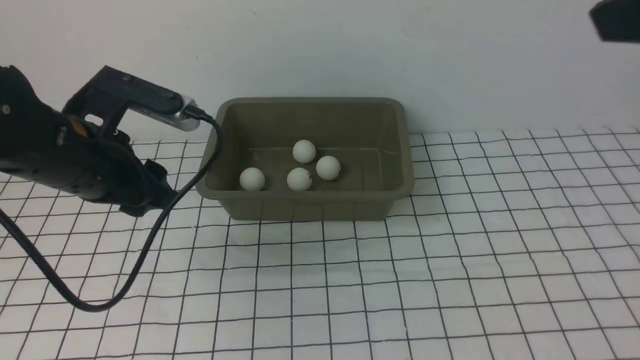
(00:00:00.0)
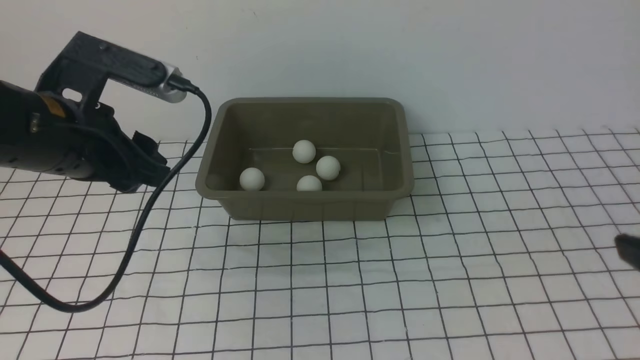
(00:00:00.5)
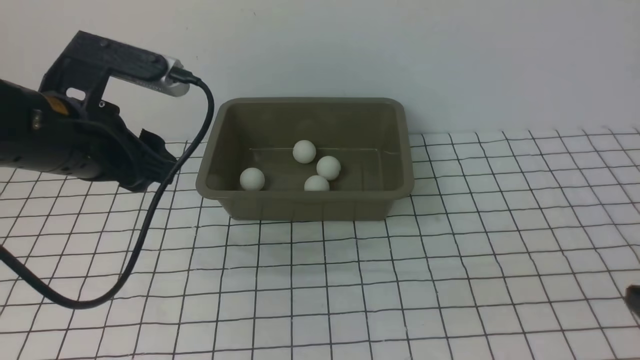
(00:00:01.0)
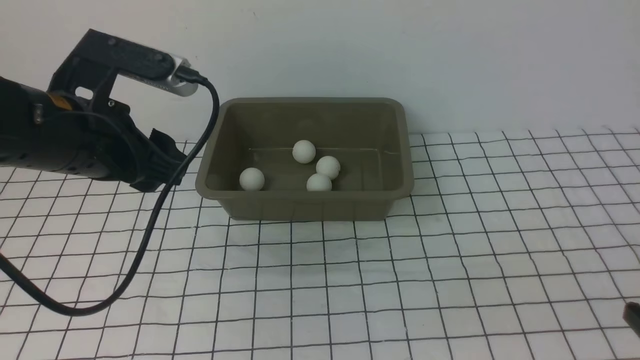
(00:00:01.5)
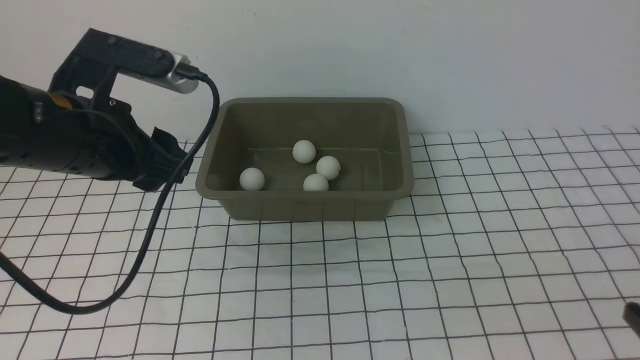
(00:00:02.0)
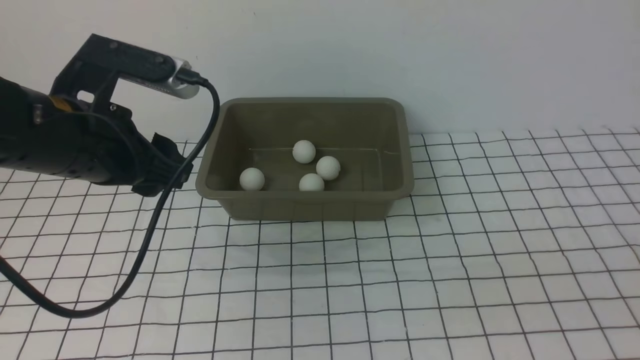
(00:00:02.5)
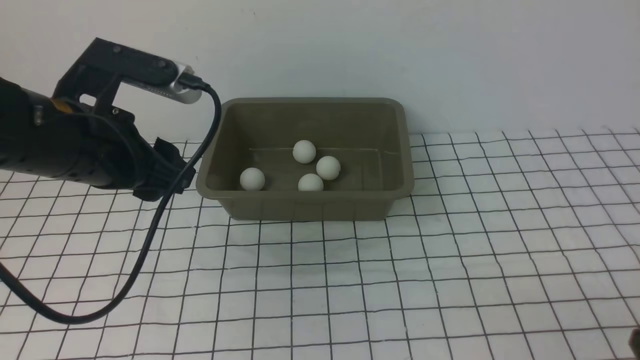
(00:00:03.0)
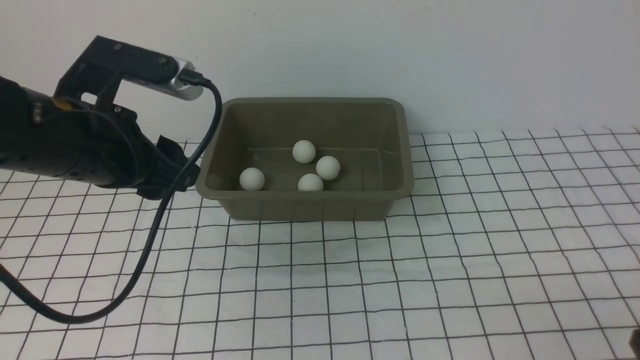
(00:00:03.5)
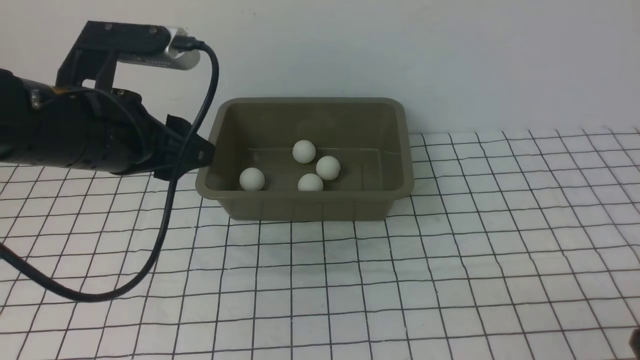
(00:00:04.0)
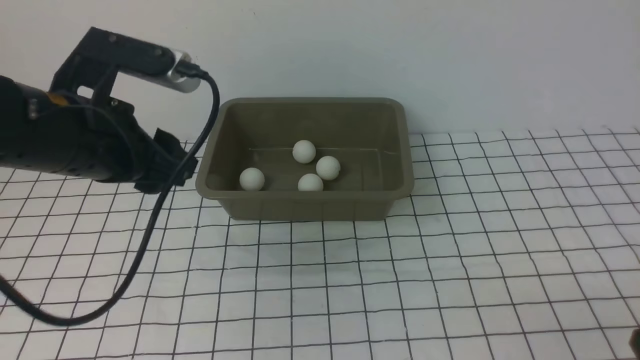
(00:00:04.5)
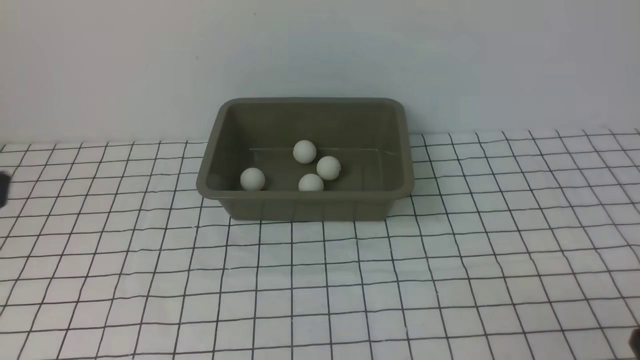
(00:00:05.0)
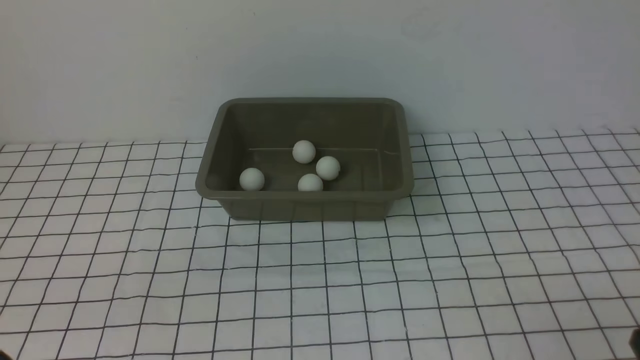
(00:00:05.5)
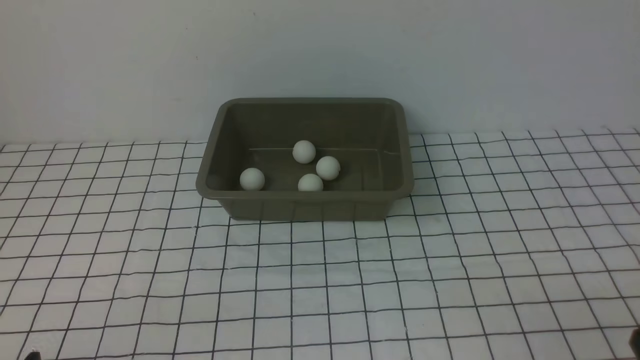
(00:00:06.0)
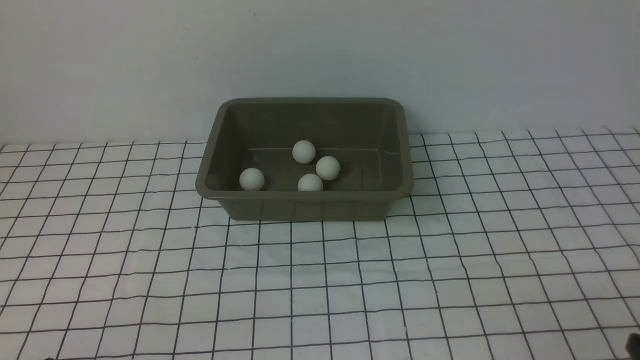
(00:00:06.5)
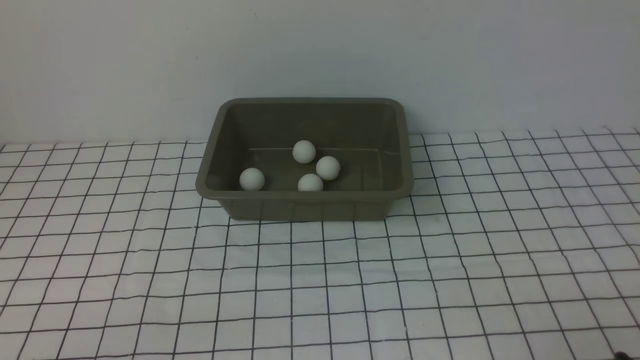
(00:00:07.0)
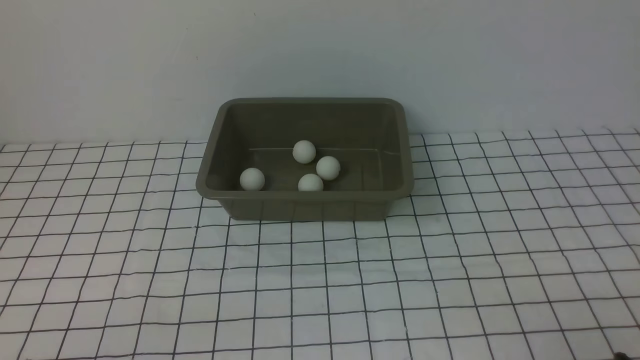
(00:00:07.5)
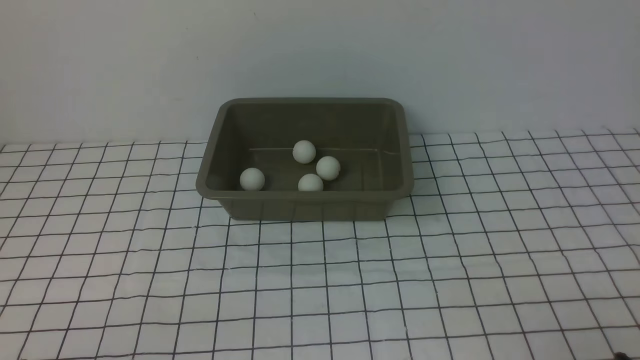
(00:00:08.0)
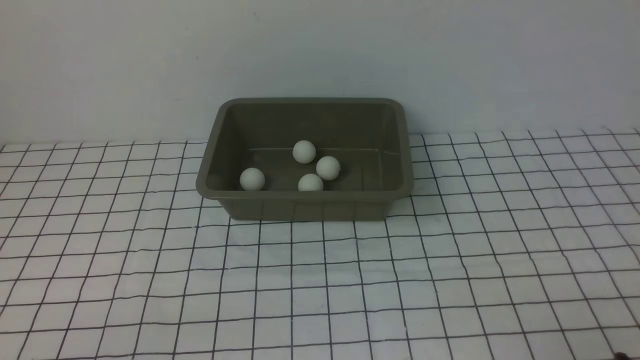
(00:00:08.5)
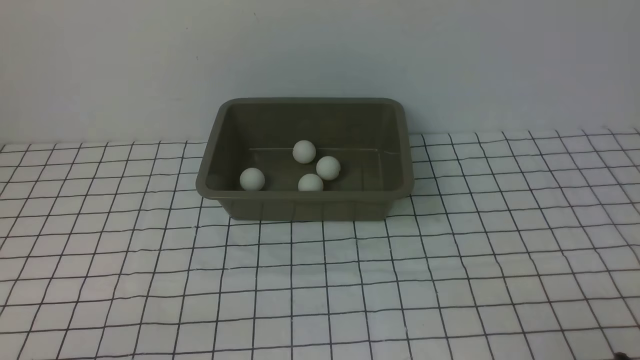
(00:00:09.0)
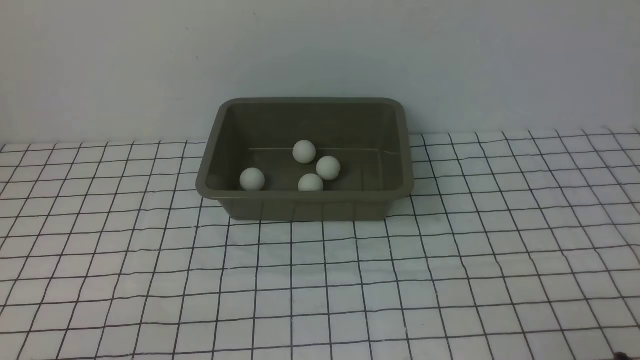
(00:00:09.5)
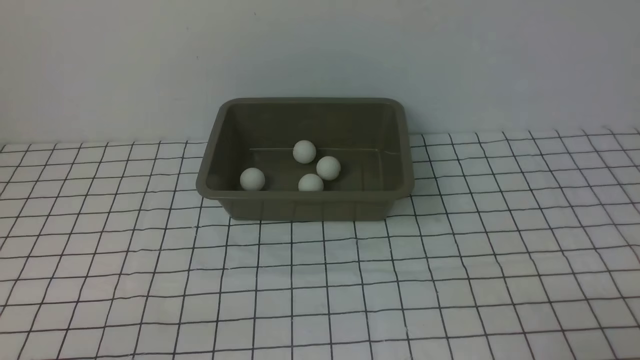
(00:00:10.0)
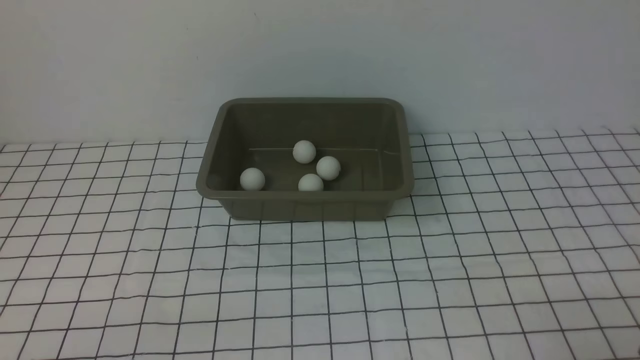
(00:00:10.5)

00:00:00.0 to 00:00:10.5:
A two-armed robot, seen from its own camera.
00:00:00.0 to 00:00:02.0: The right gripper moves downward and backward, approximately 25 cm.
00:00:04.0 to 00:00:06.5: The left gripper moves backward and downward, approximately 25 cm.

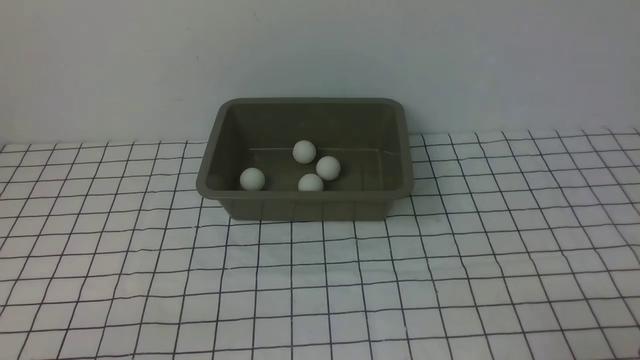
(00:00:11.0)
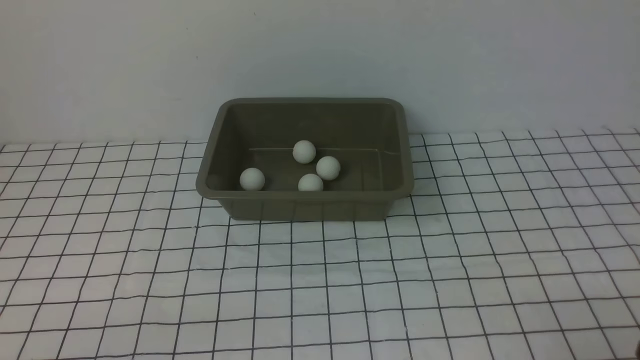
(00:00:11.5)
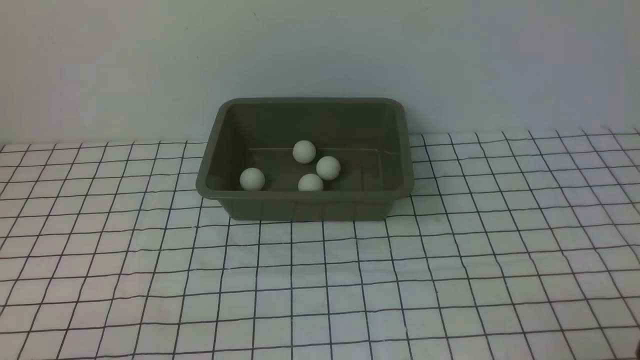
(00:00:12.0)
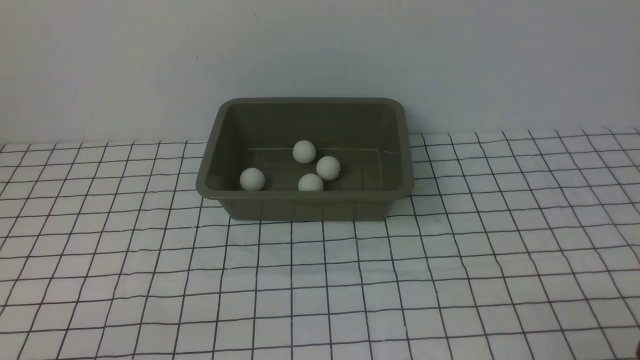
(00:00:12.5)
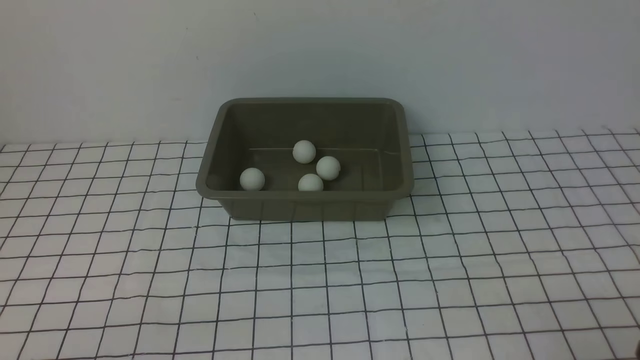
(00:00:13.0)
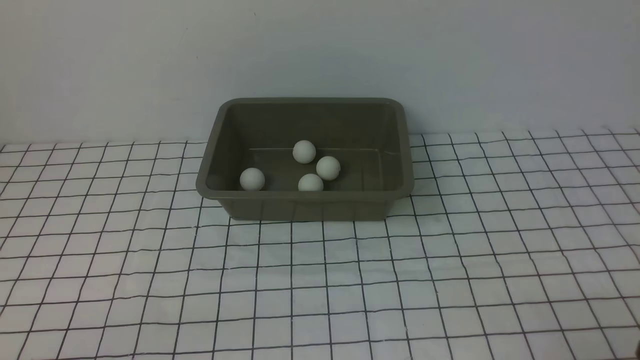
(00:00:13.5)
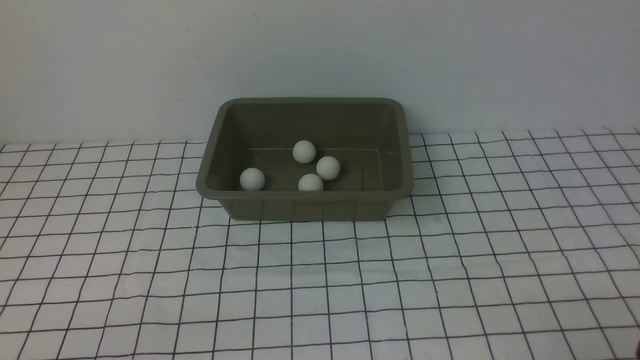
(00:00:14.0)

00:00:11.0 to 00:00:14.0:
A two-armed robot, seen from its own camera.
00:00:11.0 to 00:00:14.0: Both grippers stay put.

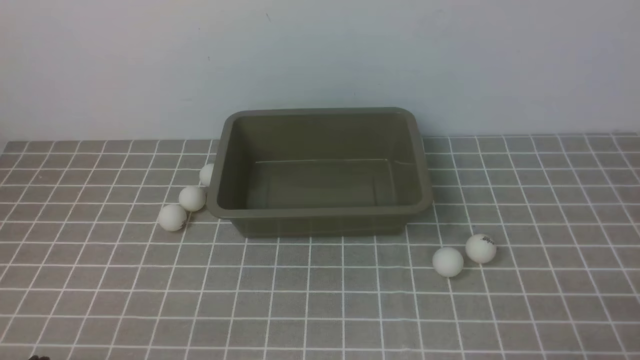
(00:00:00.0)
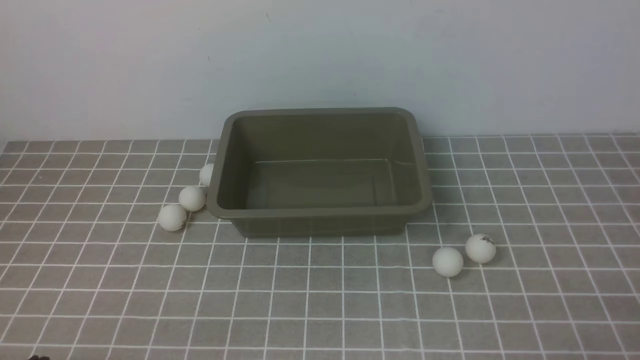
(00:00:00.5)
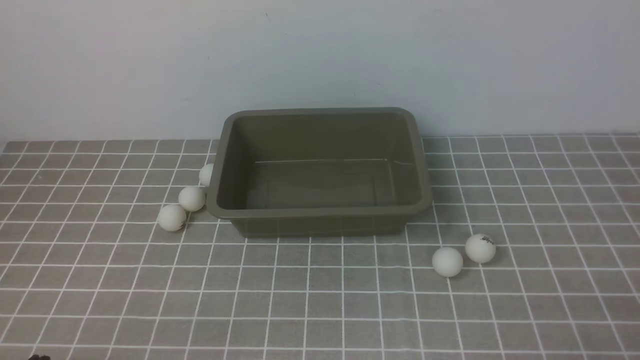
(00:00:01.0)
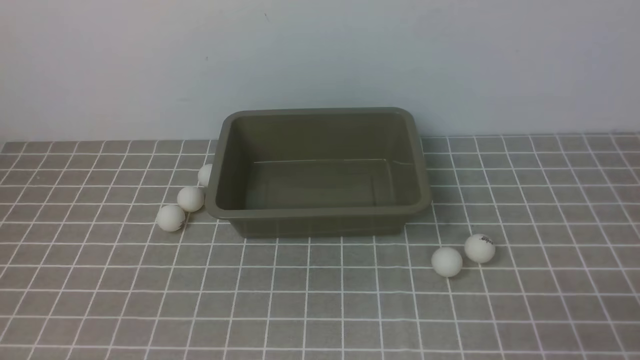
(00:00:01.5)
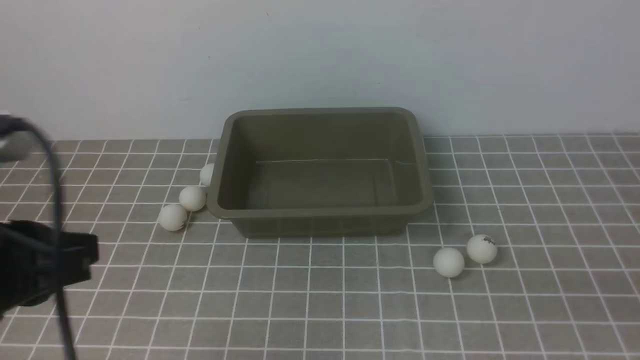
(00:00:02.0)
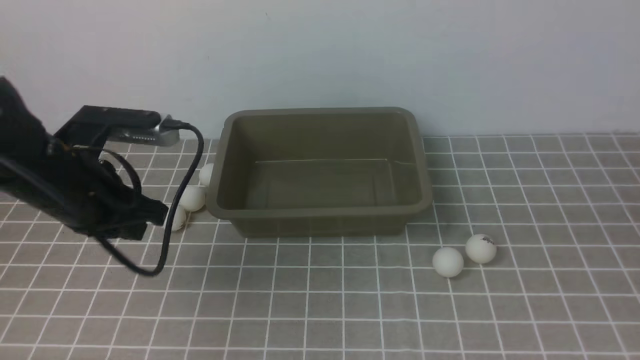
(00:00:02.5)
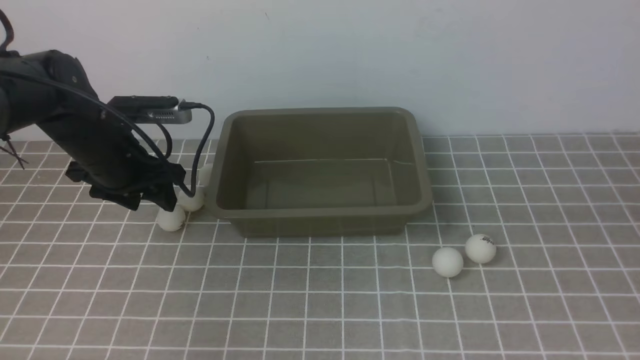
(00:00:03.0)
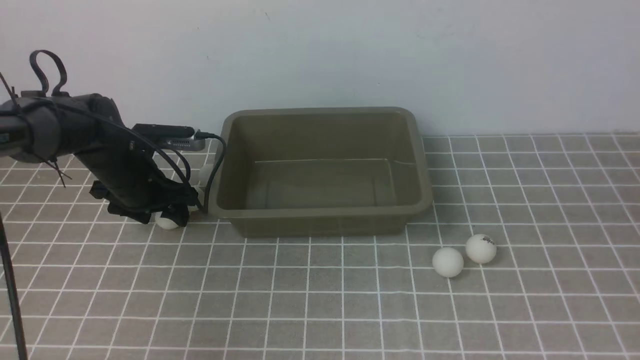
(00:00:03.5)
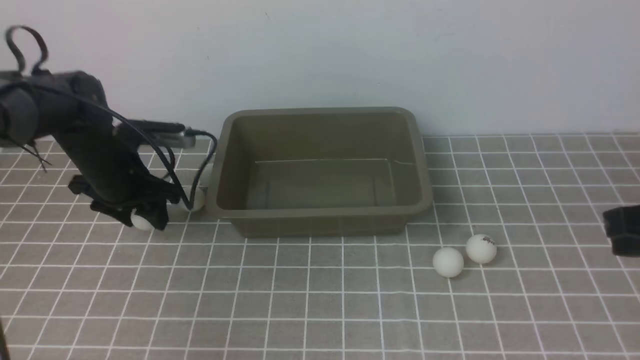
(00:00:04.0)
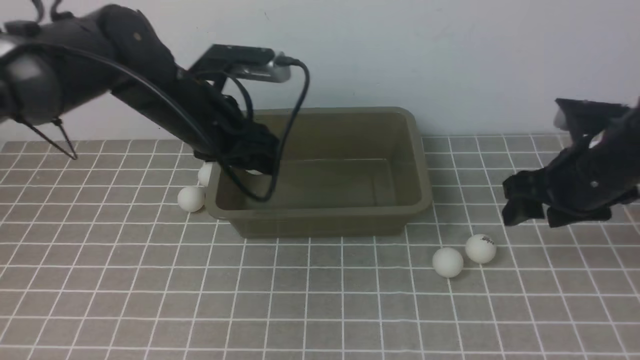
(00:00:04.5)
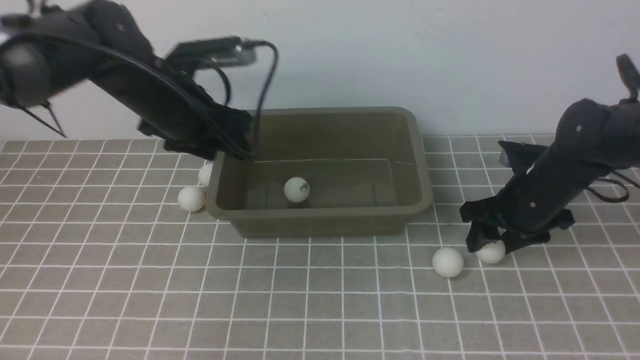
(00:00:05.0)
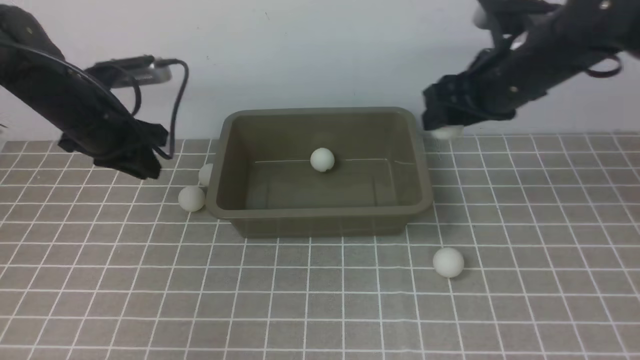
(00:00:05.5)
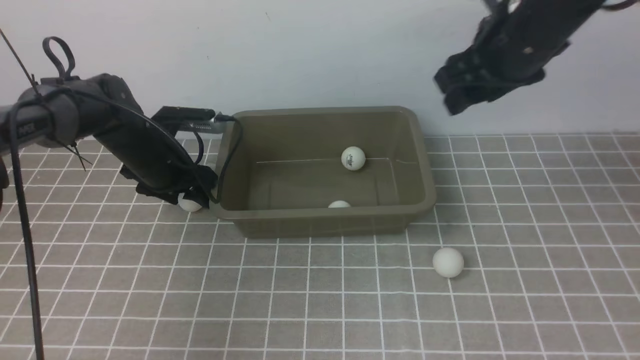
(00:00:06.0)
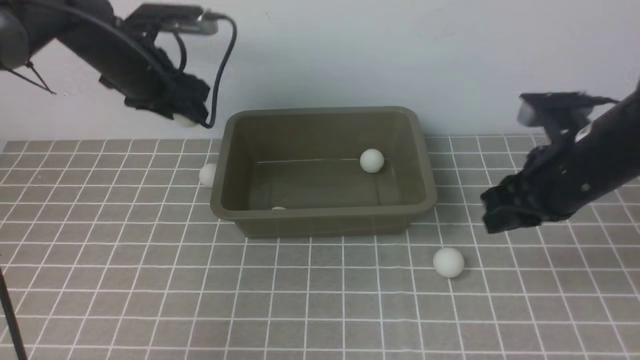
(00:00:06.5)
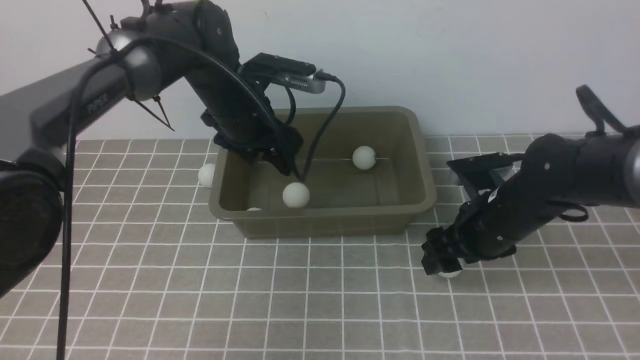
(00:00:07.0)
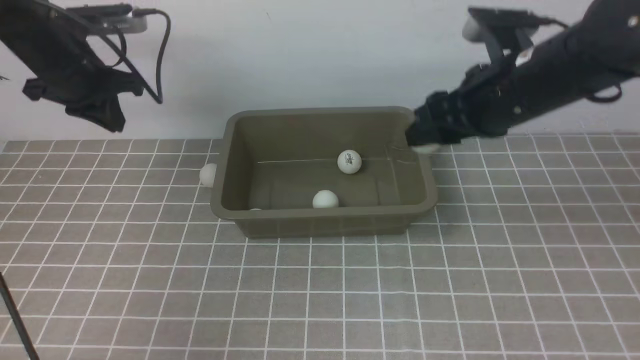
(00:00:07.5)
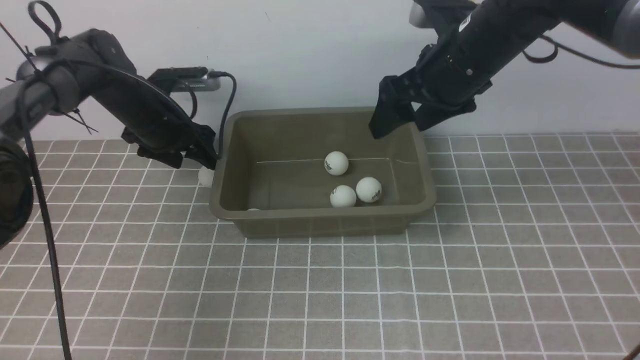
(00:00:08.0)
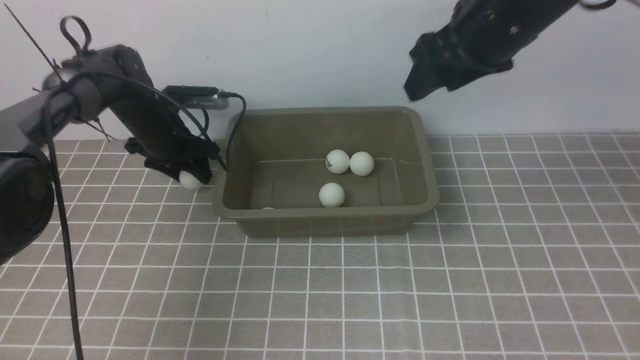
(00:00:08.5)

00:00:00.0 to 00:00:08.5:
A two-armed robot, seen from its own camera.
Step, 00:00:00.0 to 00:00:04.0: use the left arm to clamp the table tennis ball closest to it.
00:00:00.0 to 00:00:02.0: The left gripper travels upward and forward by roughly 20 cm.
00:00:02.0 to 00:00:04.0: The left gripper heads forward and downward, covering some 30 cm, and opens. Meanwhile the right gripper goes approximately 15 cm forward.
00:00:04.0 to 00:00:06.5: The right gripper shifts some 10 cm forward and to the left, and opens and closes again. Meanwhile the left gripper moves left and right over roughly 10 cm, changing direction 2 times.
00:00:06.5 to 00:00:08.5: The left gripper moves left and right over about 15 cm, changing direction 2 times, and closes and opens again; the right gripper shifts roughly 15 cm upward.
